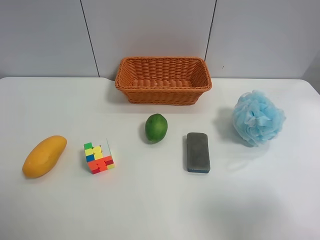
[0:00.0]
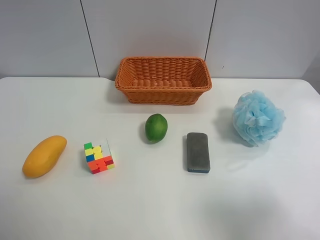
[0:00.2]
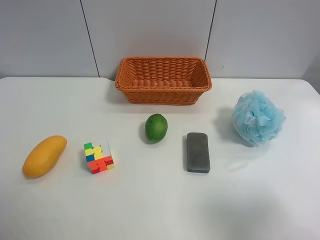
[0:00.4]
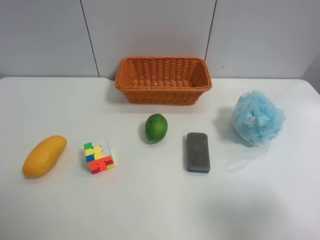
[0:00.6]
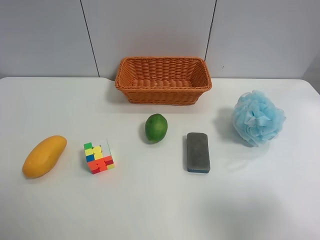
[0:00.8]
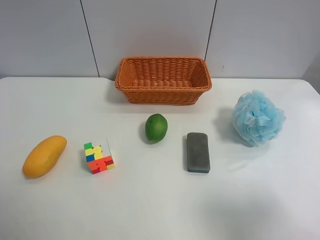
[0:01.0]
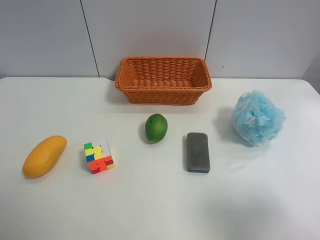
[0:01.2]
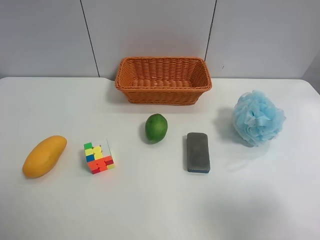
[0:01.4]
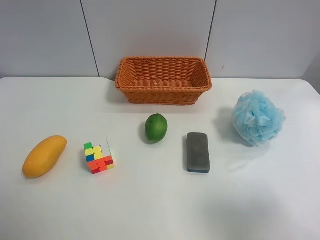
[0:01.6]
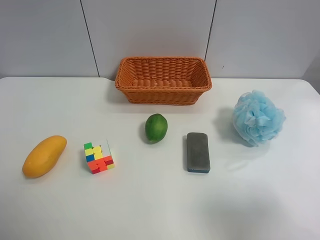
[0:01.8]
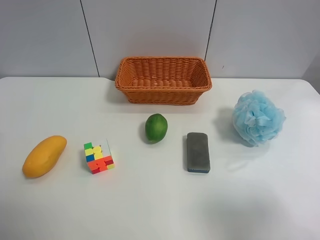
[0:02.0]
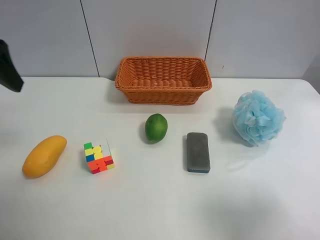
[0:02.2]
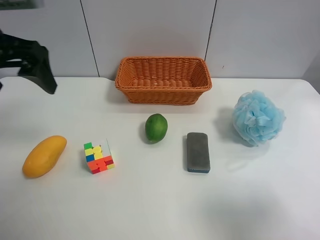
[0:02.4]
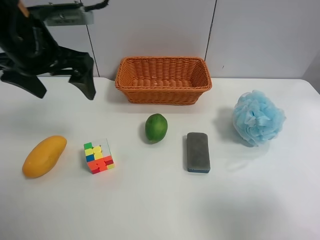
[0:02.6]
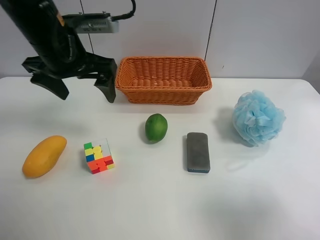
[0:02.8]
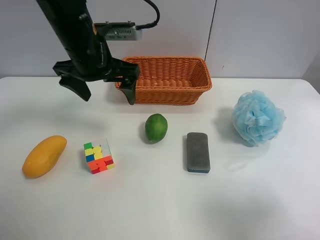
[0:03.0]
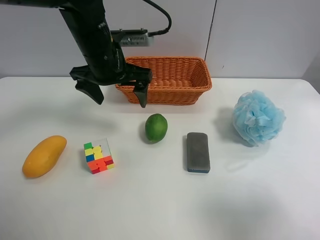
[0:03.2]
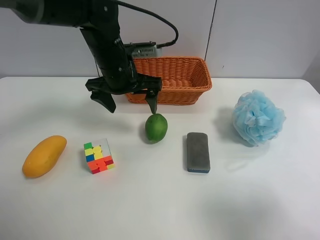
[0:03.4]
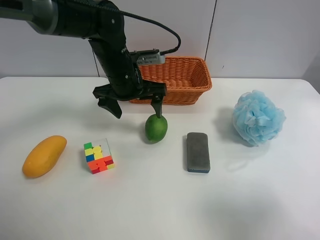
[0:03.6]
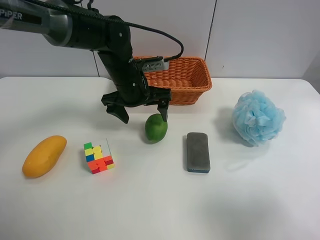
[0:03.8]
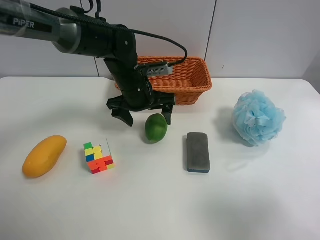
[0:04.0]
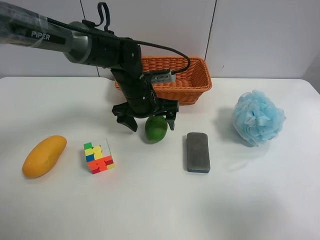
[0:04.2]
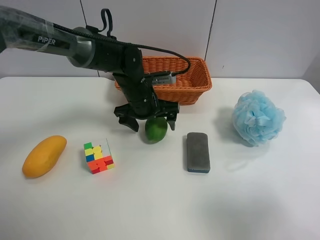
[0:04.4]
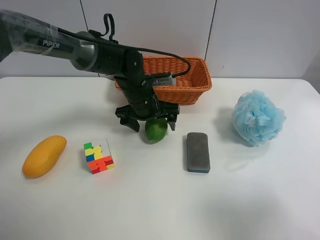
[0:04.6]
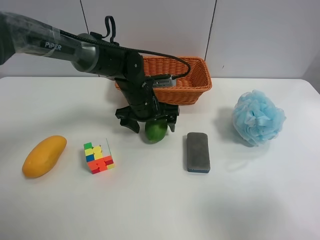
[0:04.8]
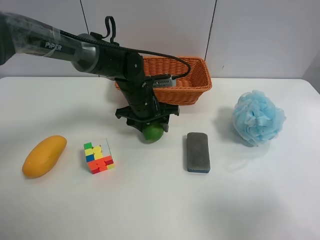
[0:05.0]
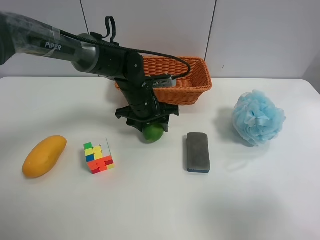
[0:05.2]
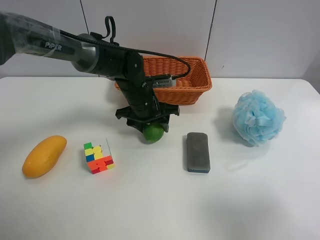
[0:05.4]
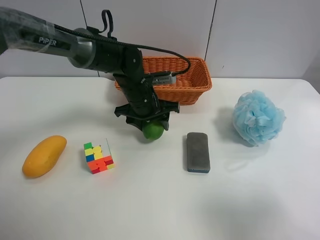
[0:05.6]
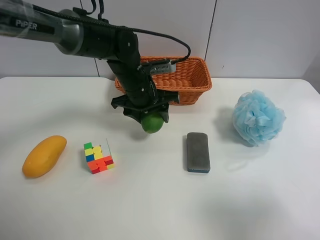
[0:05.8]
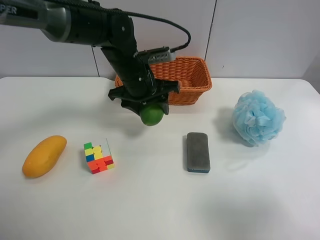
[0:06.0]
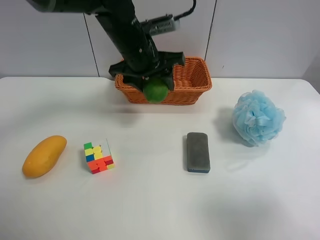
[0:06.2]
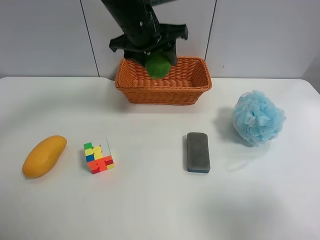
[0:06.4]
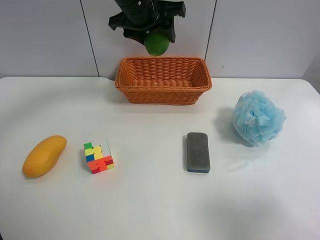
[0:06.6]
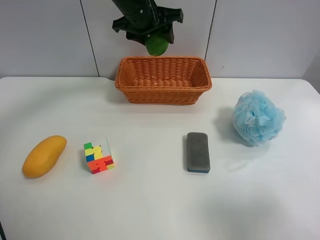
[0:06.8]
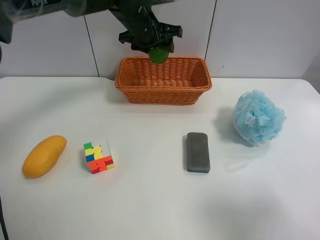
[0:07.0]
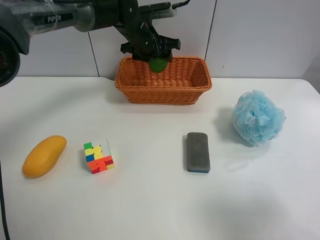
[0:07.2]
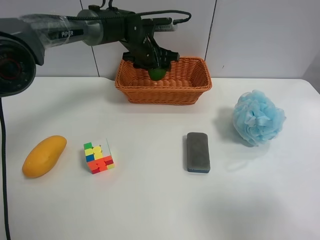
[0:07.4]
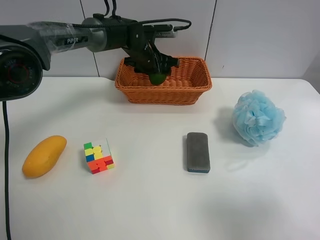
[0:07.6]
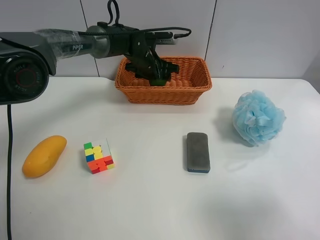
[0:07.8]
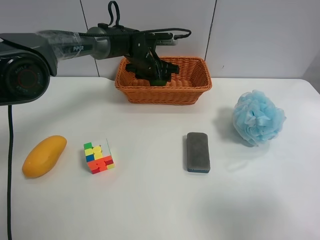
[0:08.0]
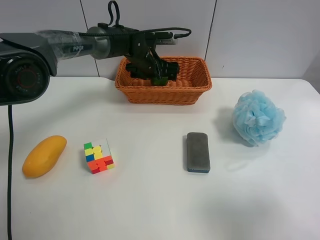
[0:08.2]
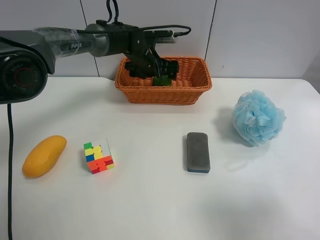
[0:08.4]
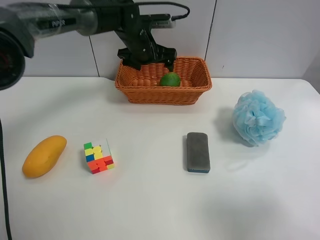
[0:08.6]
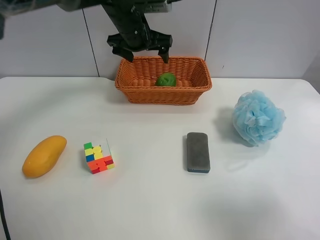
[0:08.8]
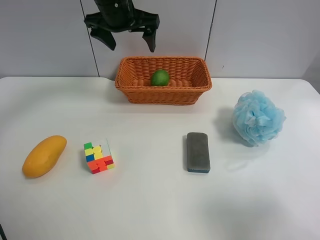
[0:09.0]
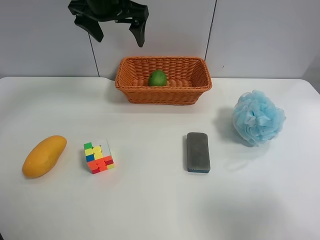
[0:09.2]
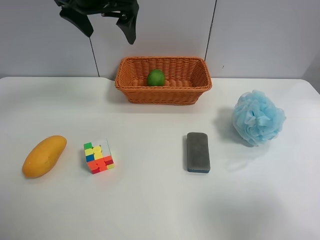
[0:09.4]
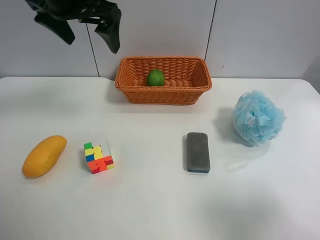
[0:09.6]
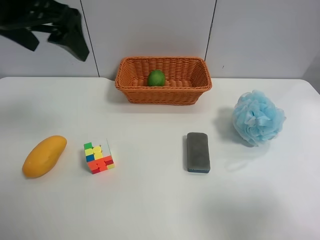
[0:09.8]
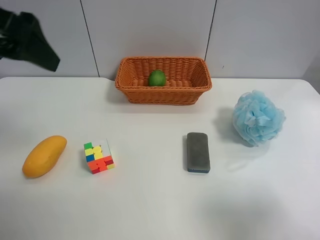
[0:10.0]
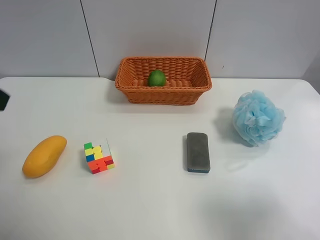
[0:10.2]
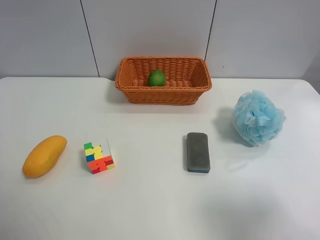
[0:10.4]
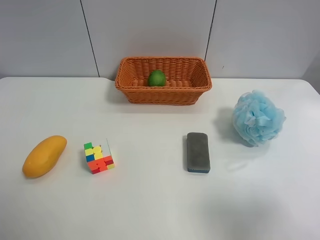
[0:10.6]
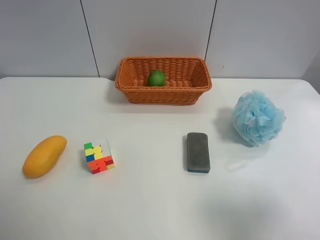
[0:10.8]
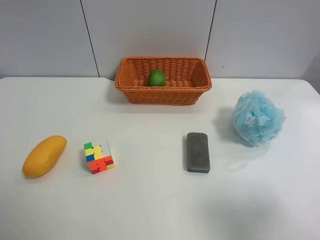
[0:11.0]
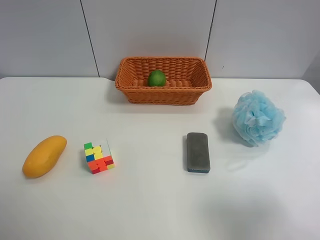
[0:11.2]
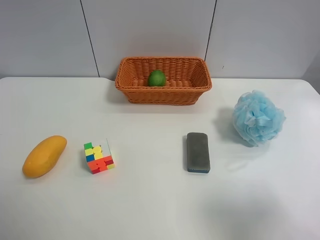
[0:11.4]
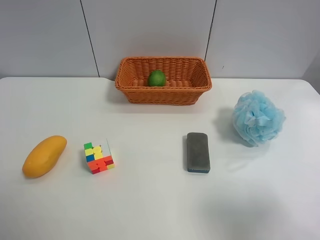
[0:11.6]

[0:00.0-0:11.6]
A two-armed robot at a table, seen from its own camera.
Task of the whole recording: Randomly grab green lemon or mangoes from the table and put them in a basket.
Step, 0:00.0 to 0:05.2: Grasp the Lemon with the left gripper.
Step, 0:05.4 to 0:08.8: Place the Lemon into the basket with the left gripper.
0:01.4 to 0:02.8: The left gripper goes approximately 35 cm forward and to the right.
0:02.8 to 0:04.4: The left gripper travels downward, to the right and forward by about 20 cm.
0:04.4 to 0:05.8: The left gripper closes up.
0:05.8 to 0:07.2: The left gripper travels forward by some 10 cm, and goes upward and returns, approximately 15 cm each way.
0:07.2 to 0:08.8: The left gripper heads upward, covering approximately 5 cm, and opens up.
0:08.8 to 0:10.2: The left gripper heads backward and to the left, covering roughly 40 cm.
